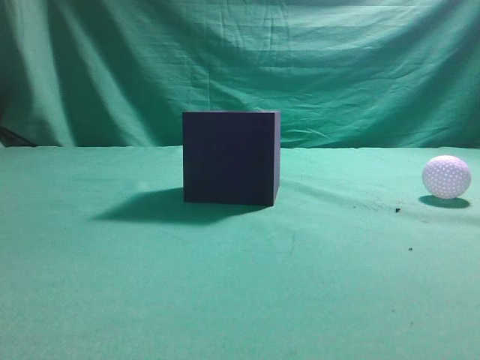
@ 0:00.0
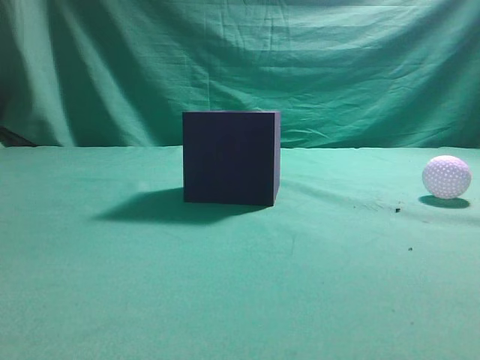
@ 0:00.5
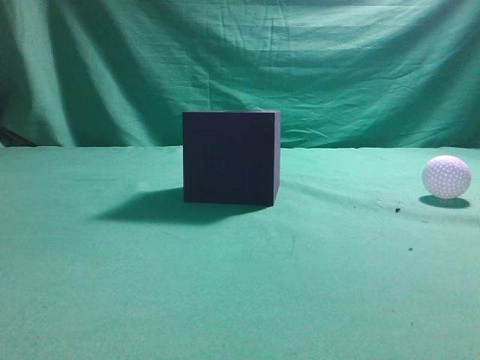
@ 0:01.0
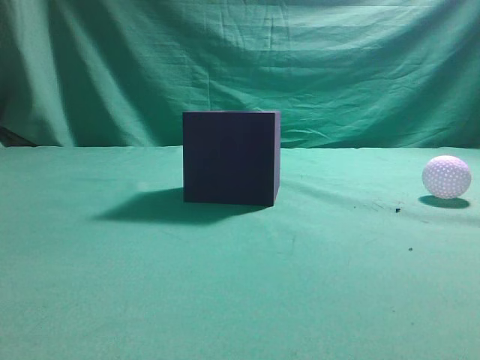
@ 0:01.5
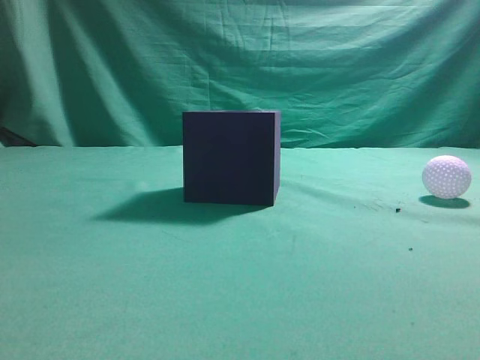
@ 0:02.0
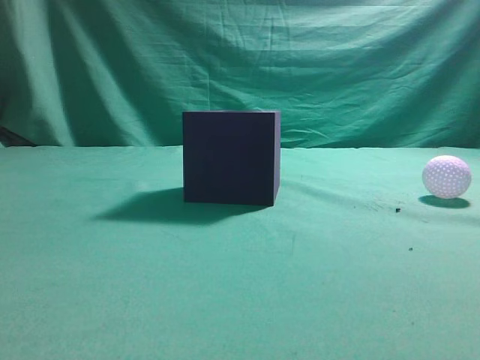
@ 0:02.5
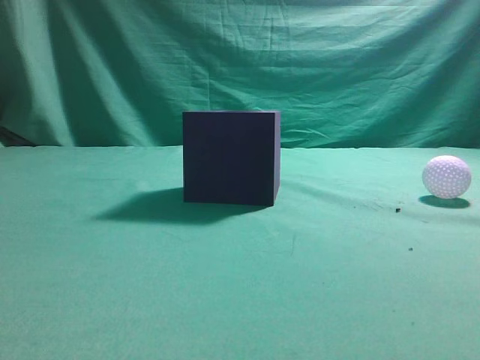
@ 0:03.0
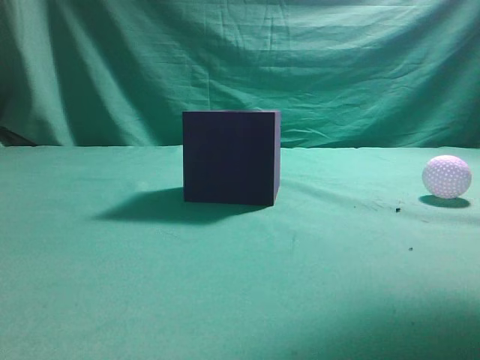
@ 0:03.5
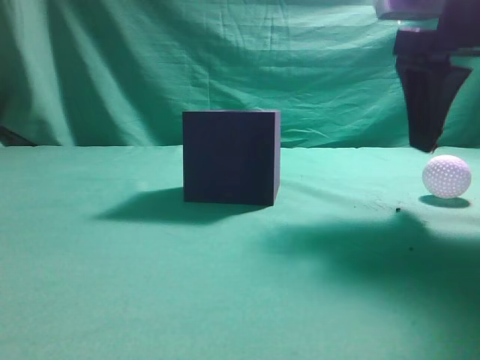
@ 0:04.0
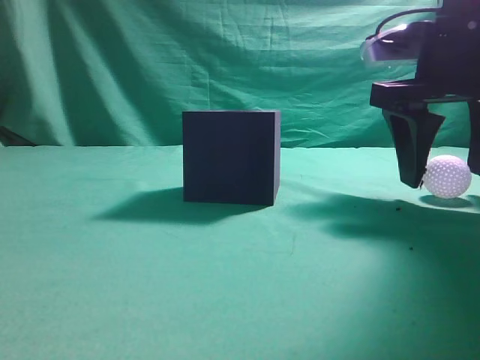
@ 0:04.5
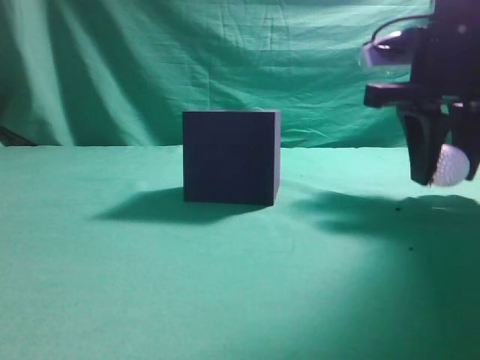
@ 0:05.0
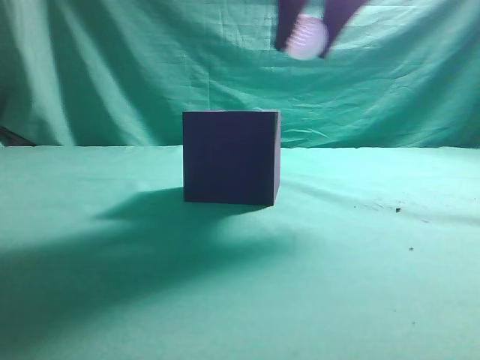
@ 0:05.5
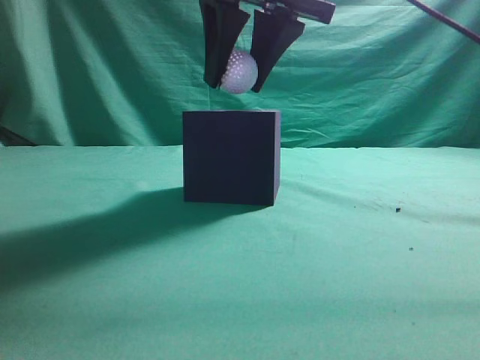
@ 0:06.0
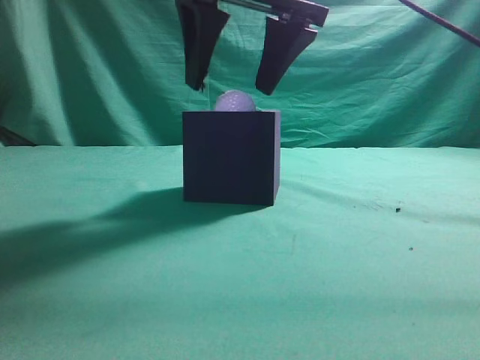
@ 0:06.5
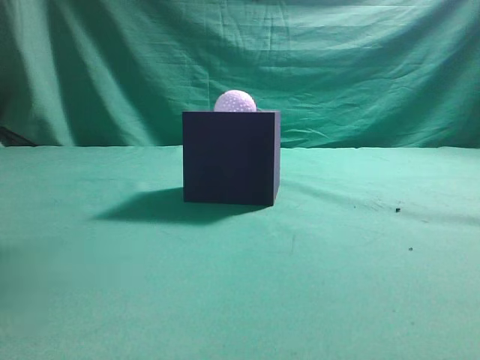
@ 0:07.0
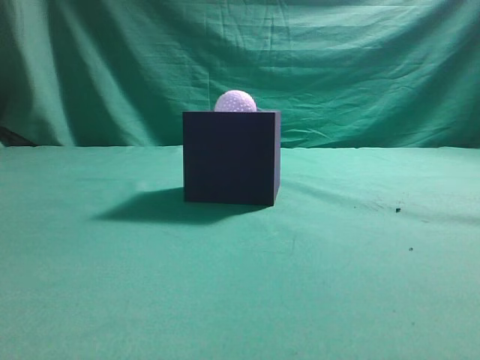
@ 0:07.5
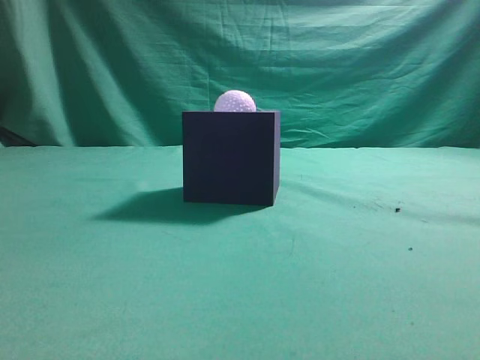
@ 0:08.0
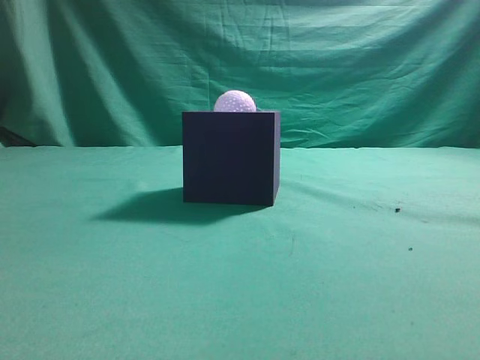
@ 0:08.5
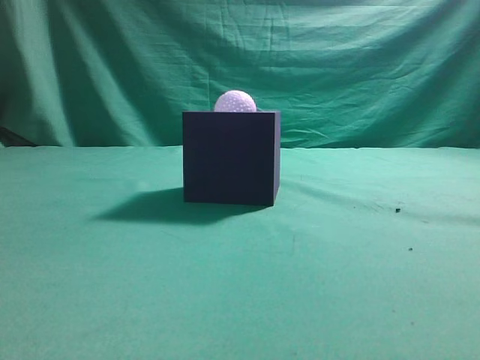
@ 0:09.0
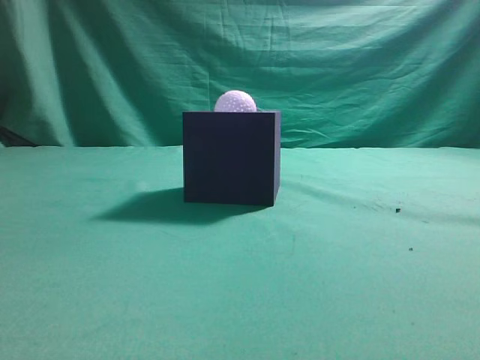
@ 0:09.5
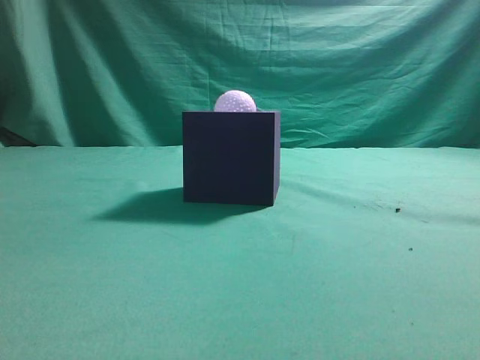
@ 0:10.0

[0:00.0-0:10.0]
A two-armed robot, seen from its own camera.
Task of the whole recording: Pick up the ball and place it in the circular groove above the cube.
Step, 0:00.0 to 0:05.0: Grasp the sphere on the table.
Step, 0:05.5 to 0:06.5: Place the sphere into the sphere-shaped recess.
0:02.0 to 0:04.0: The right gripper is displaced forward by roughly 25 cm, and opens.
0:04.0 to 0:06.0: The right gripper goes about 15 cm to the left, and closes.
0:06.0 to 0:08.0: The right gripper goes some 30 cm backward, to the right and upward, and closes.
